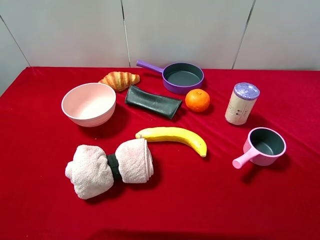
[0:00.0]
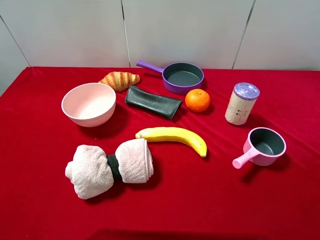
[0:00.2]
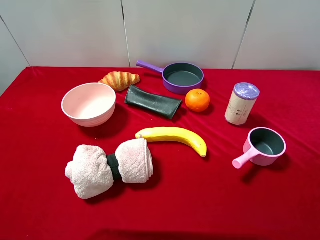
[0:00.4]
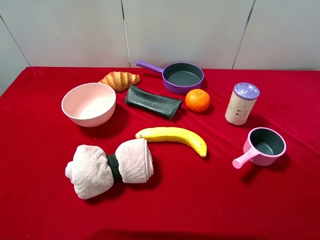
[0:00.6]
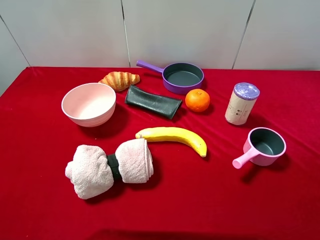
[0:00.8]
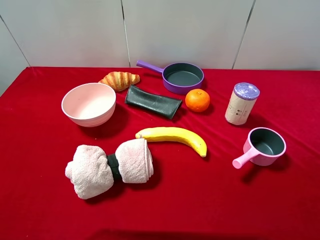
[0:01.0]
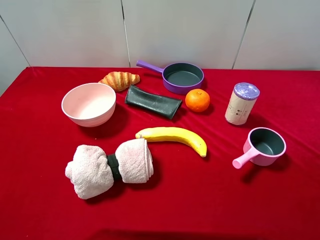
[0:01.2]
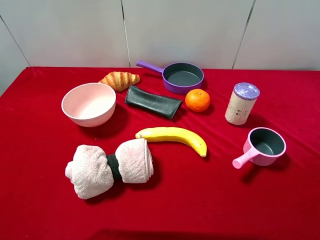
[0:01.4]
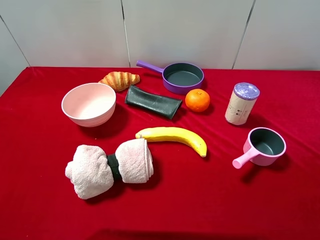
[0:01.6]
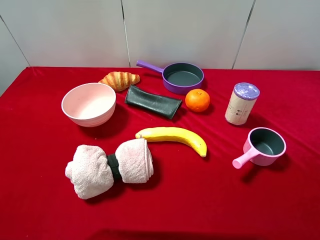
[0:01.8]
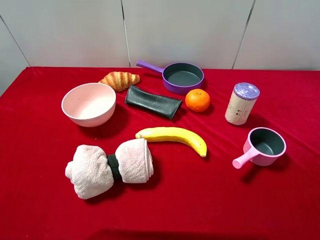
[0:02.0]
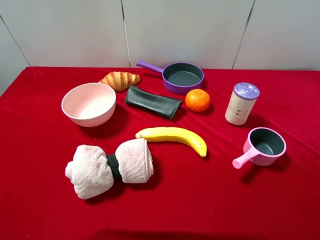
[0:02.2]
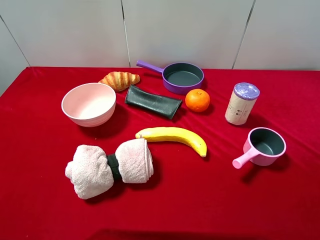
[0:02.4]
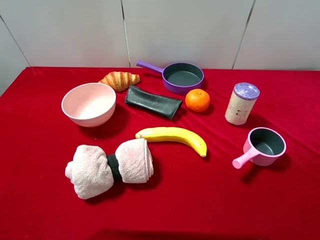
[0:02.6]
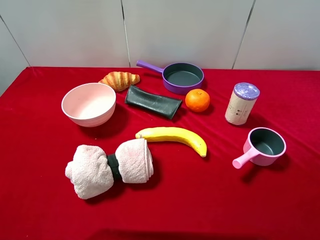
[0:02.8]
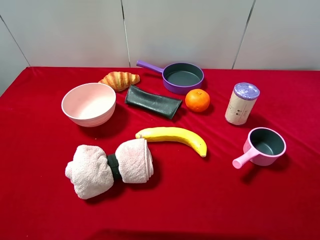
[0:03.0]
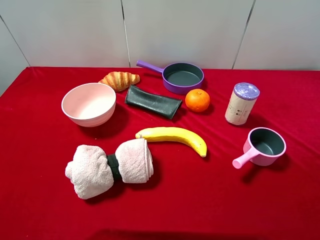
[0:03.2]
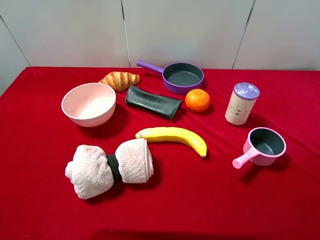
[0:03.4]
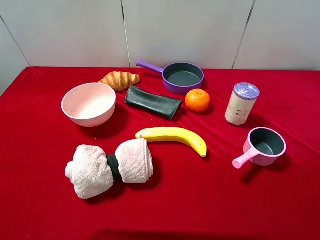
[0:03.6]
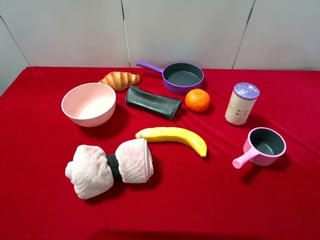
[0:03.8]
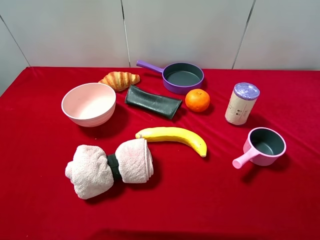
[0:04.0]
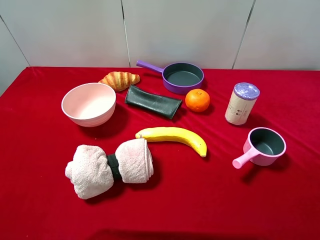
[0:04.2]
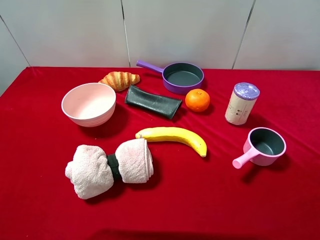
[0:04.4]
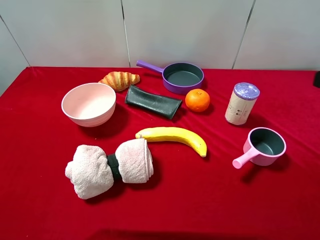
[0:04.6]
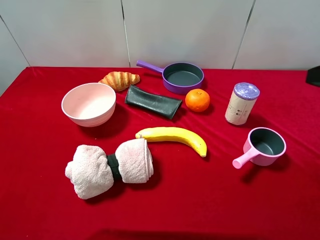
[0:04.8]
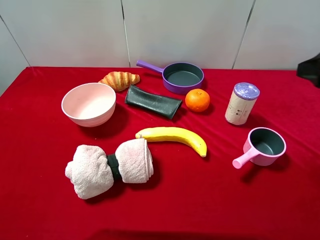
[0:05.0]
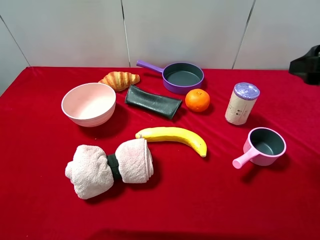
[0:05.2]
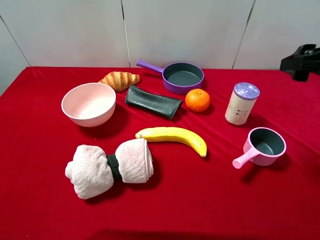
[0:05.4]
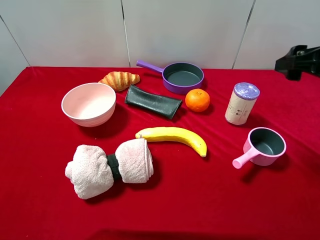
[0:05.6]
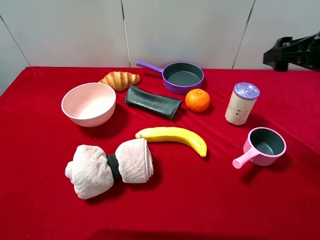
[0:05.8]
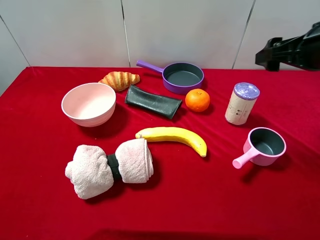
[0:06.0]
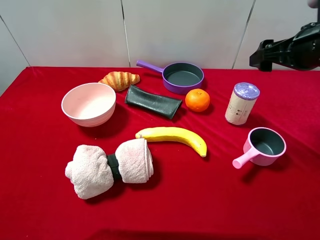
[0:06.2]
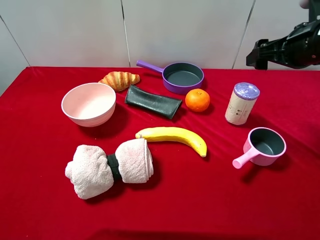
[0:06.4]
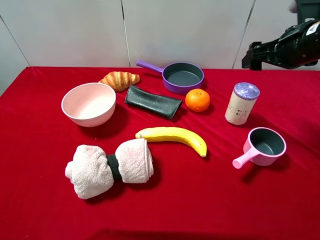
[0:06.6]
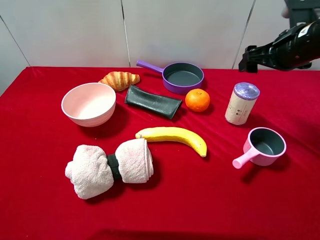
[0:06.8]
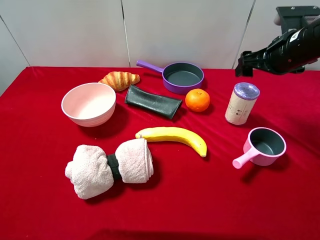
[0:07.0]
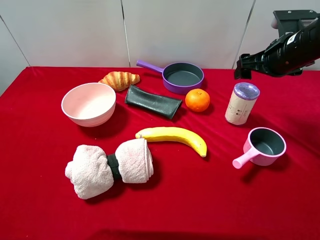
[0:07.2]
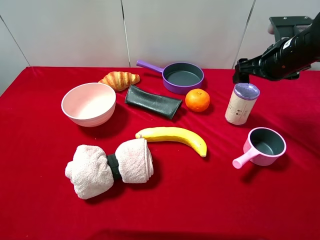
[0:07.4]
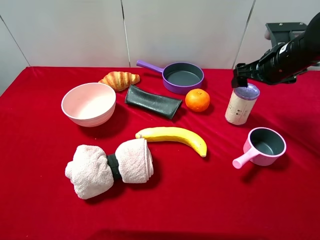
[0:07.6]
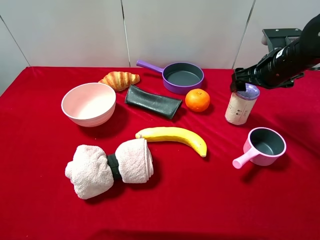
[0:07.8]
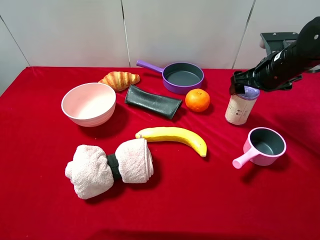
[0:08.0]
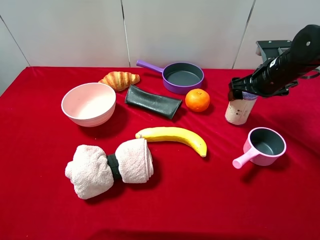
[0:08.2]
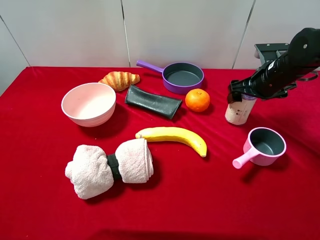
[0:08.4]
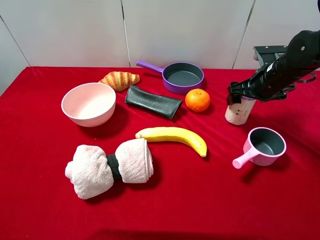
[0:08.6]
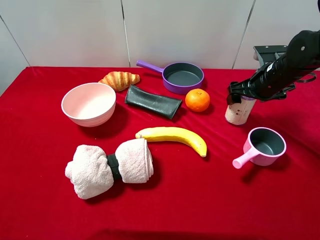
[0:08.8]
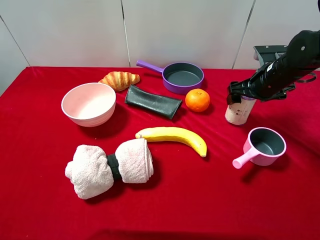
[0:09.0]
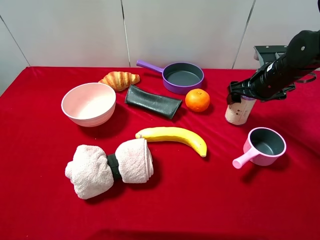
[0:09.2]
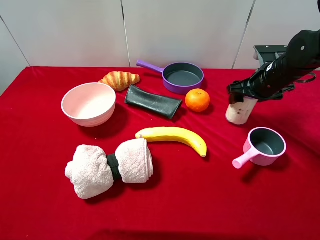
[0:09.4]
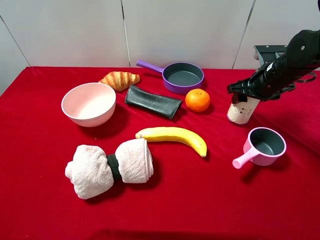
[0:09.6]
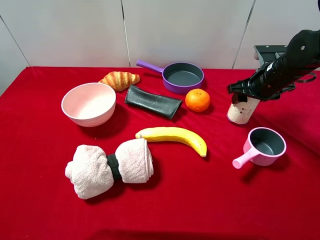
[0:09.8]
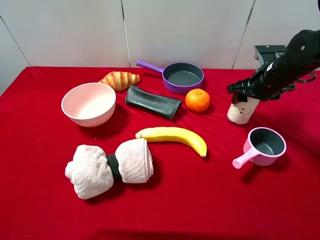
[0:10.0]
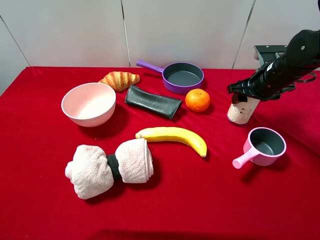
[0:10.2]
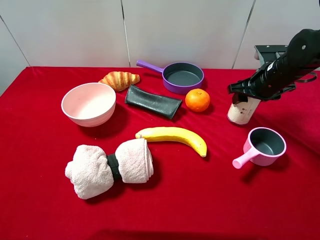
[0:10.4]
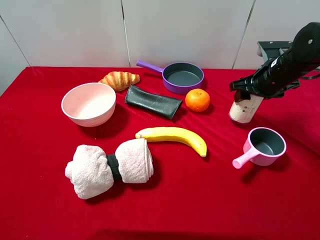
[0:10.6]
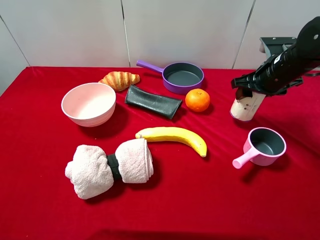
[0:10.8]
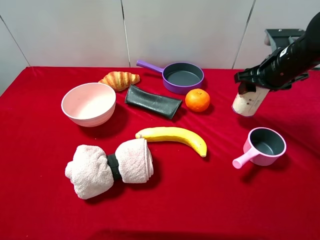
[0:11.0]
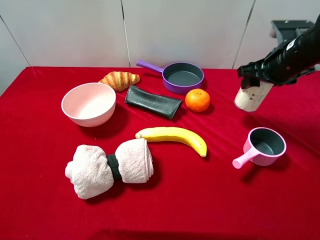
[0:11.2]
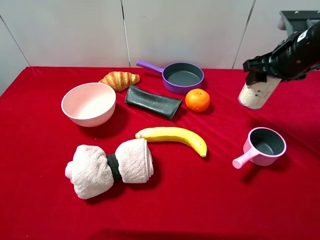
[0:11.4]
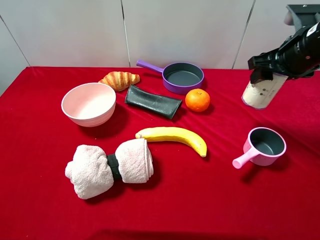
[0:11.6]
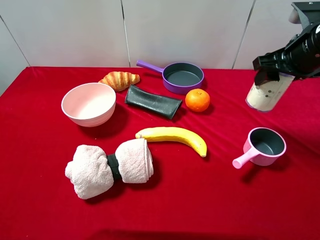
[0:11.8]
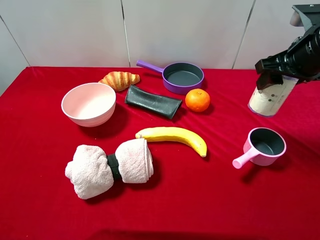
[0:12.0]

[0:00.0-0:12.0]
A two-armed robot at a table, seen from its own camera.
Task of the whole recording: pick up an item with a gripper and place it in a random container on the desktop.
0:00.0 to 0:03.0: The two grippers keep their place.
0:04.4 to 0:06.0: The right gripper shifts some 15 cm forward.
0:06.0 to 0:07.6: The right gripper shifts about 10 cm forward and downward.
0:07.6 to 0:09.0: The grippers make only small movements.
0:09.0 to 0:10.4: The right gripper closes its fingers.
0:10.4 to 0:12.0: The right gripper goes approximately 10 cm upward and backward.

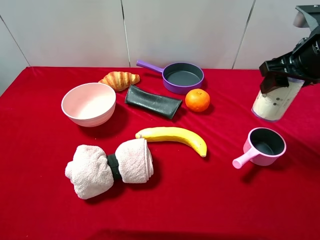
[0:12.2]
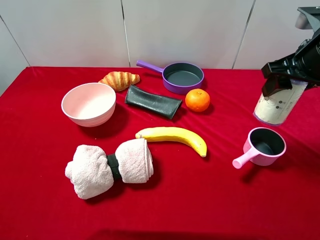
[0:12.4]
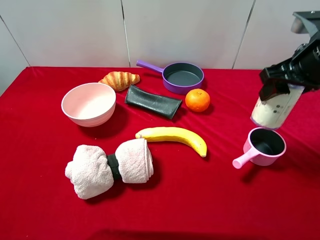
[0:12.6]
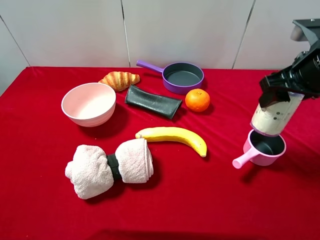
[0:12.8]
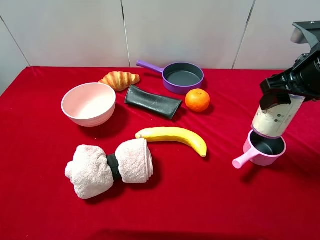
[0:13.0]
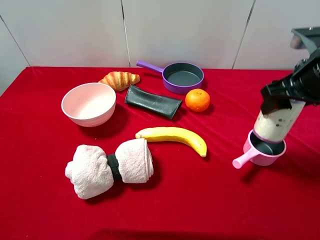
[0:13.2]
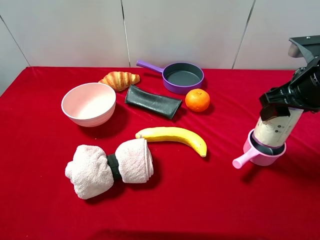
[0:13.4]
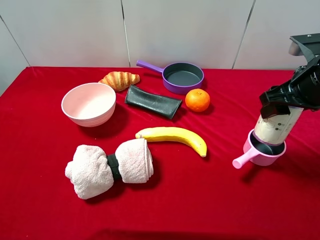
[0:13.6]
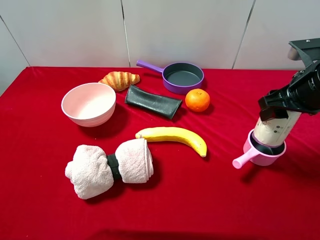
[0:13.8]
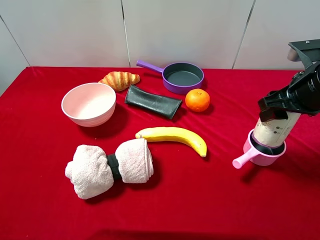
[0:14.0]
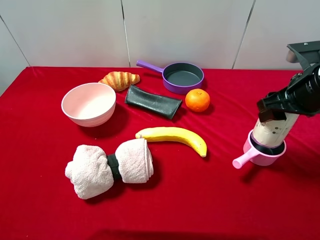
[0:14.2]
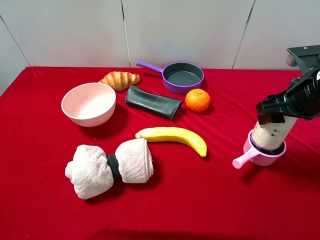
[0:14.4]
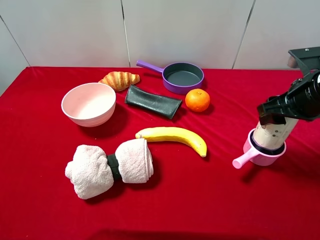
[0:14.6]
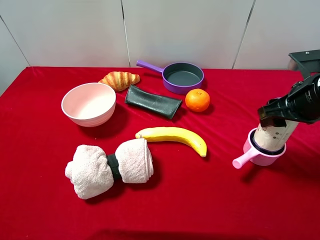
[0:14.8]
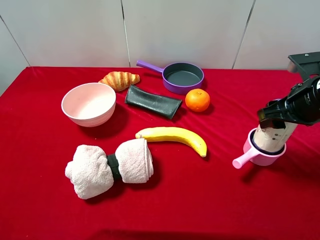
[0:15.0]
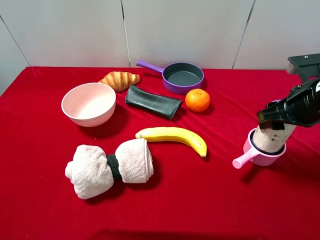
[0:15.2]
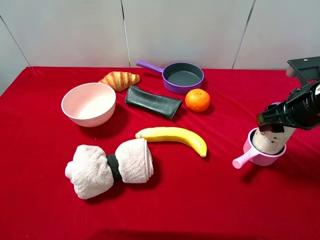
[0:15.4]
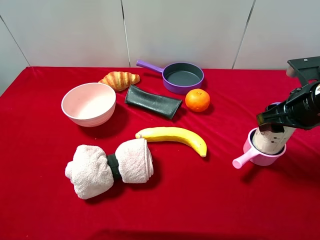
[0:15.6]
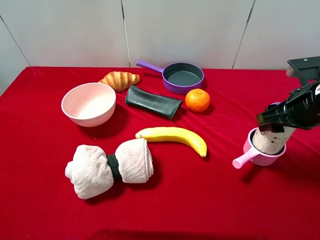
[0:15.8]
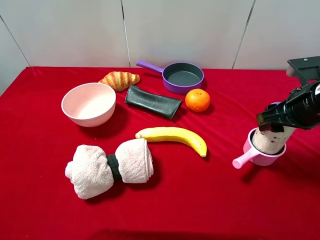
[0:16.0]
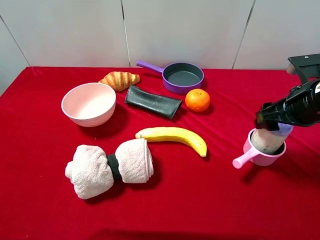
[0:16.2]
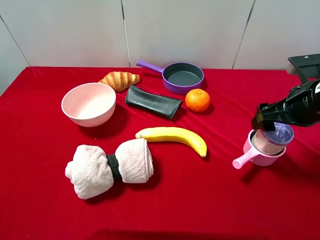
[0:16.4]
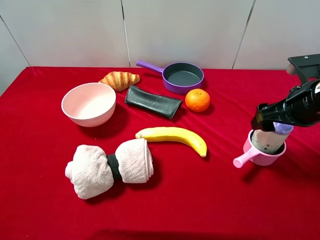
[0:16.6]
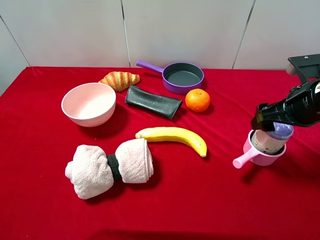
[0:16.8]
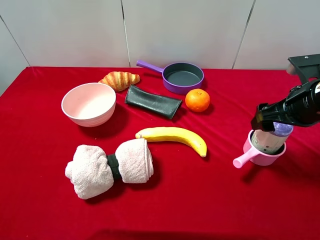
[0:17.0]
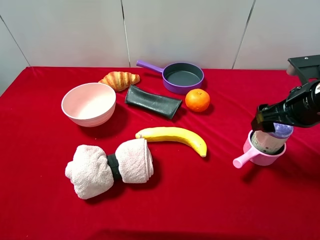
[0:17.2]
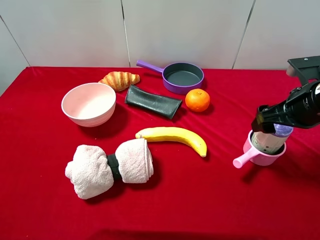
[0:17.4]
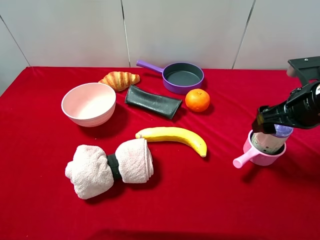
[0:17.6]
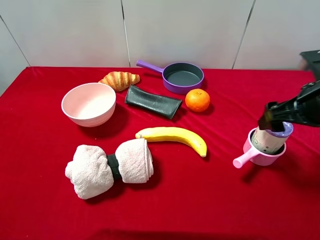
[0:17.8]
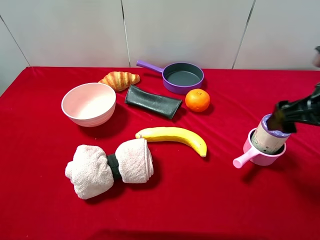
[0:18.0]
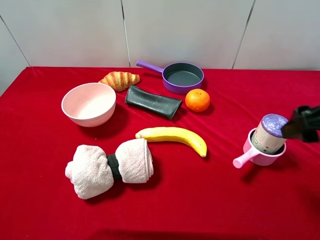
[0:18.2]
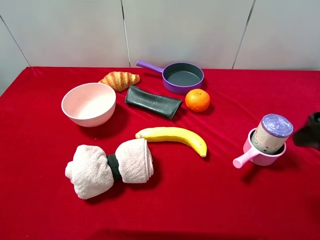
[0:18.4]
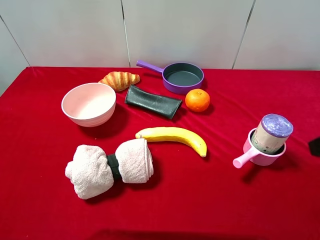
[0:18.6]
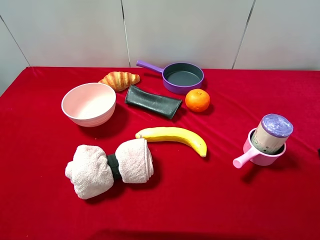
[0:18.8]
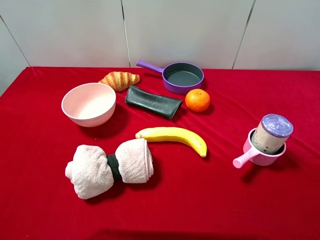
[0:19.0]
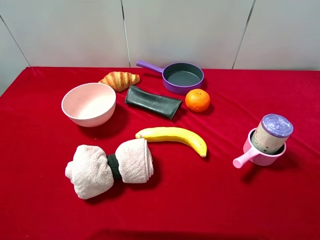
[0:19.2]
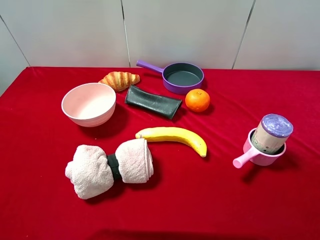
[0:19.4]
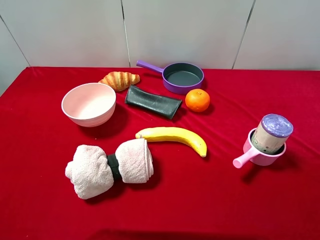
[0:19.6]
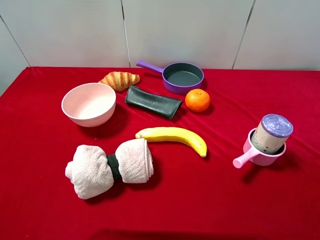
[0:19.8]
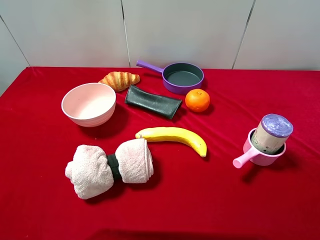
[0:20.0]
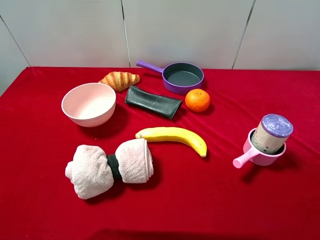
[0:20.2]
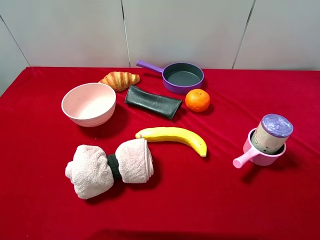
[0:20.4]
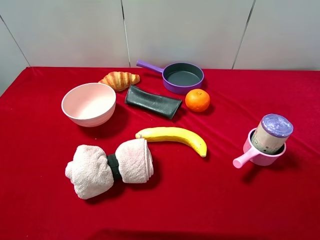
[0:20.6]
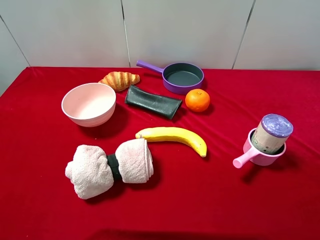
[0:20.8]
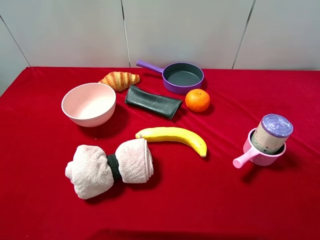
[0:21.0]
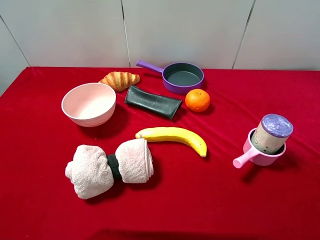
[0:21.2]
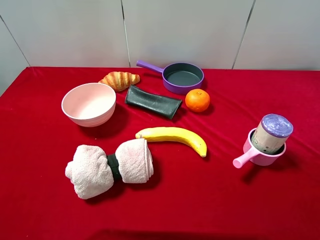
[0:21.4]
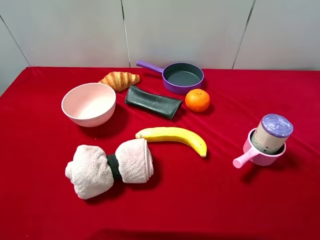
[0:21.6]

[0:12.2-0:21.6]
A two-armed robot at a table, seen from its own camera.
Task of the whole recording: pick up an item with a gripper and place it in a random container on the desktop.
0:12.2 to 0:13.8: The right gripper changes place by about 5 cm.
0:13.8 to 0:15.4: There are only small adjustments of the grippers.
0:15.4 to 0:17.0: The right gripper opens.
0:17.0 to 0:18.4: The right gripper travels backward and upward by about 10 cm.
0:18.4 to 0:20.0: The right gripper moves backward, some 15 cm.

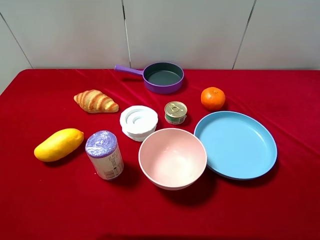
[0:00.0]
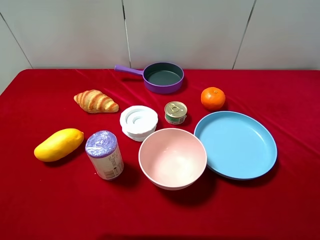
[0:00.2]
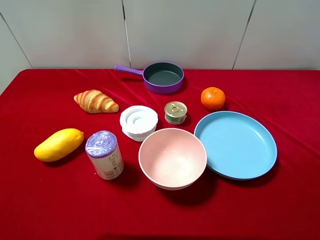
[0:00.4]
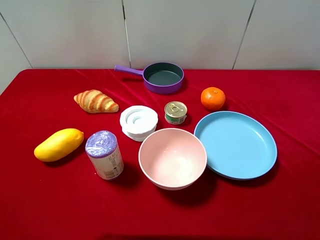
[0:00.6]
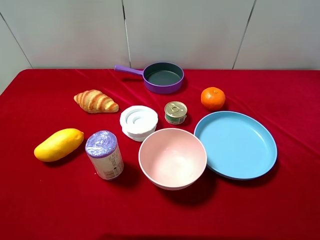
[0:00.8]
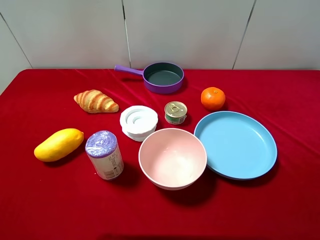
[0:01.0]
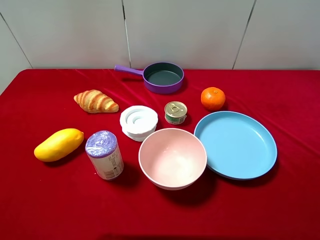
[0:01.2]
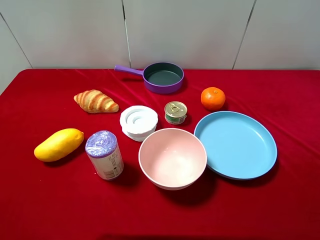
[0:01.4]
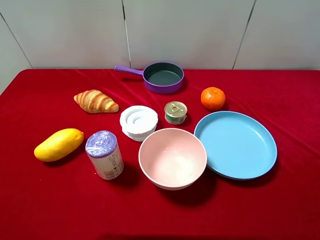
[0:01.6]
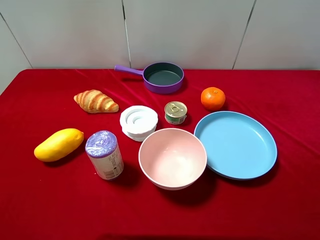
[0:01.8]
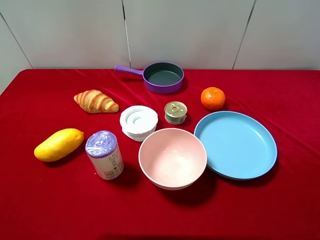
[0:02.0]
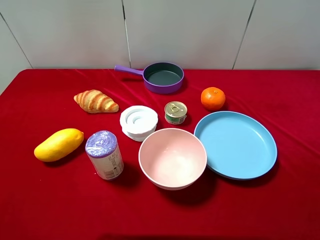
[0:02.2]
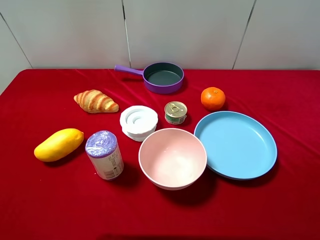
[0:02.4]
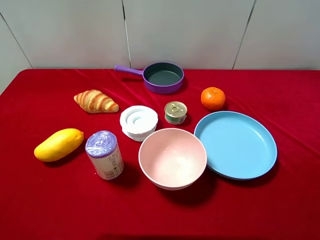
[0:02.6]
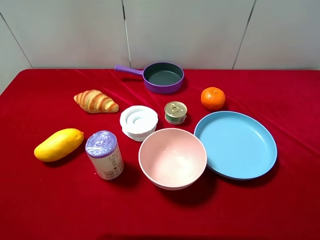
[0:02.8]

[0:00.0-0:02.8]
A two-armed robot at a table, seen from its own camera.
Task of the whole recording: pick up an item with a gripper and place it in a random container on the desktop.
0:00.0 to 0:02.8: Both grippers stay put.
